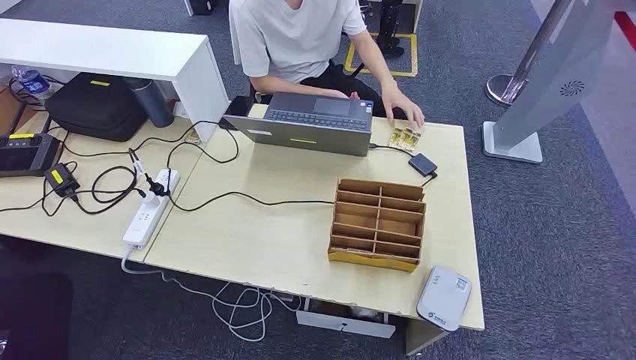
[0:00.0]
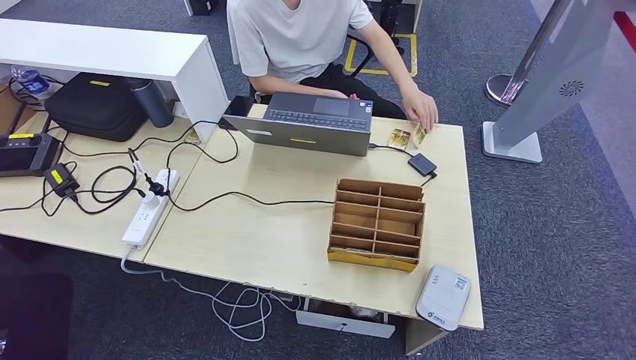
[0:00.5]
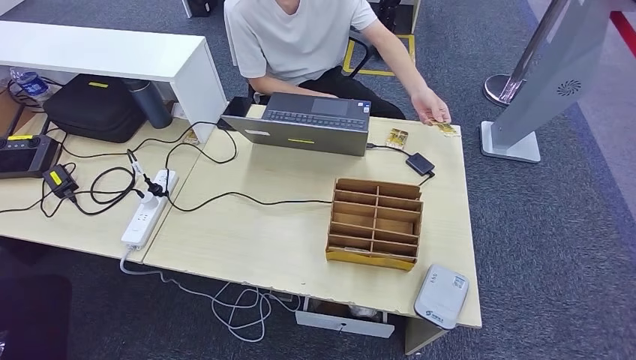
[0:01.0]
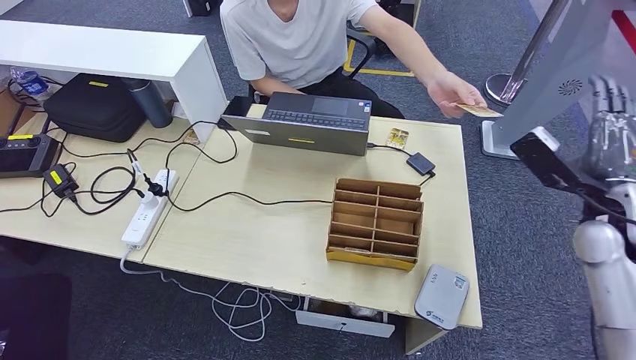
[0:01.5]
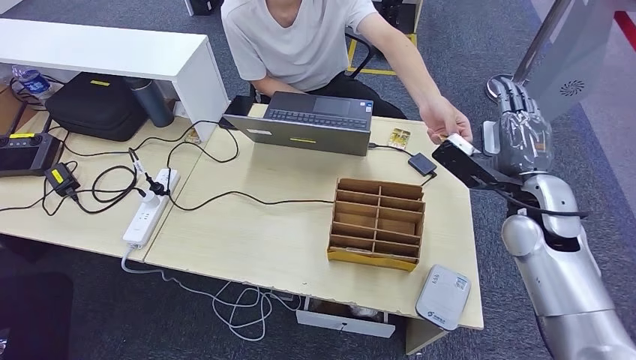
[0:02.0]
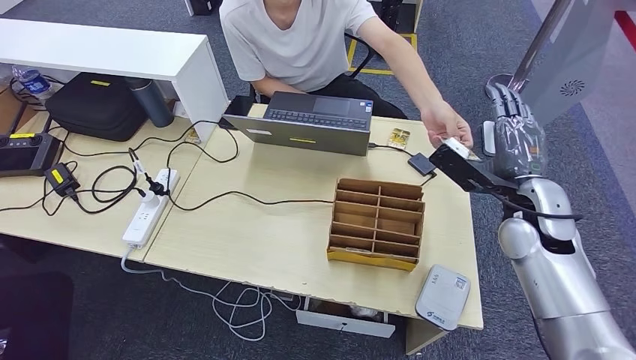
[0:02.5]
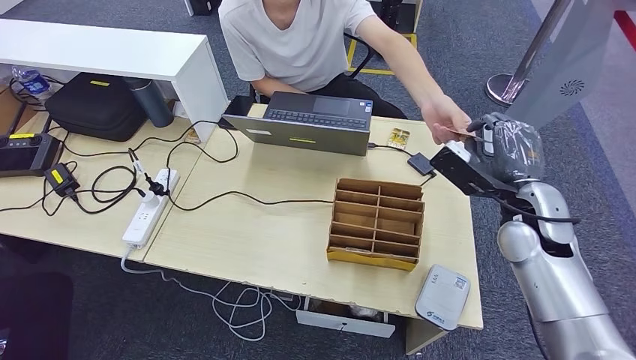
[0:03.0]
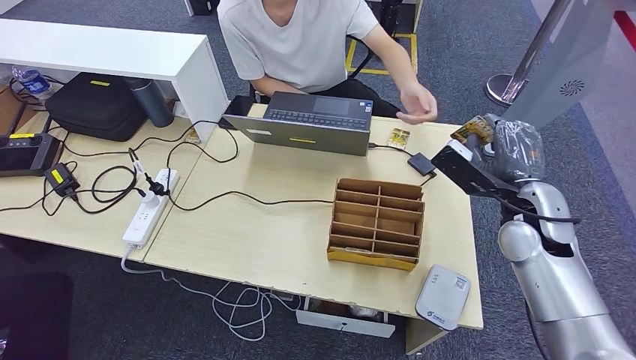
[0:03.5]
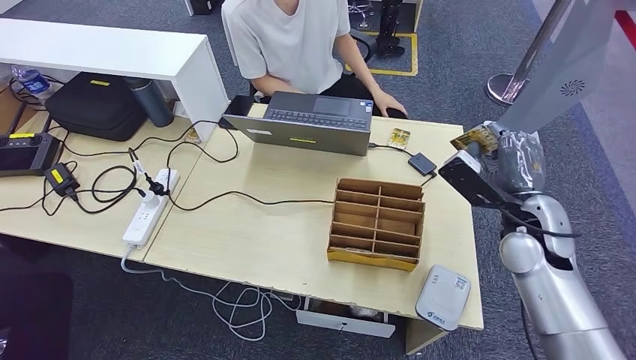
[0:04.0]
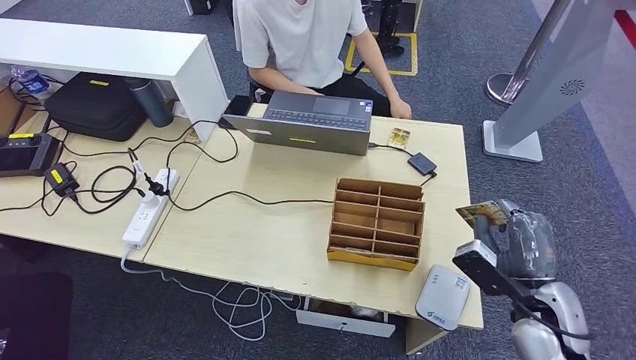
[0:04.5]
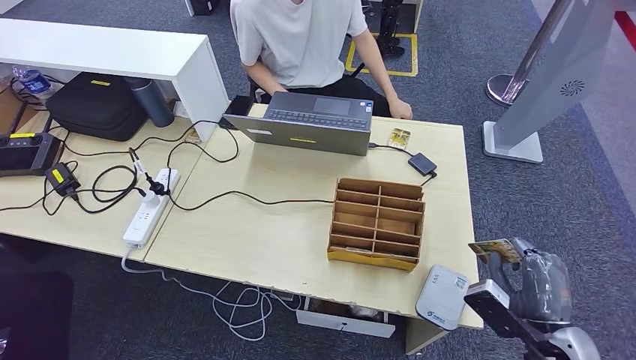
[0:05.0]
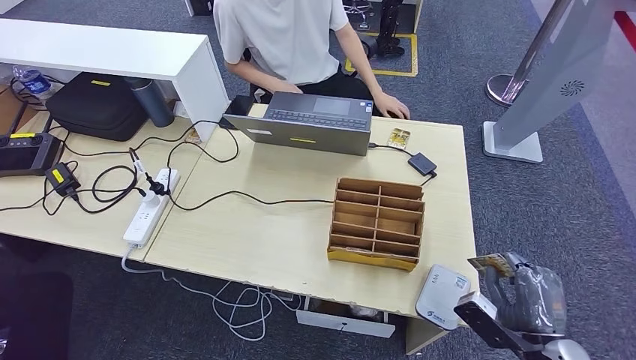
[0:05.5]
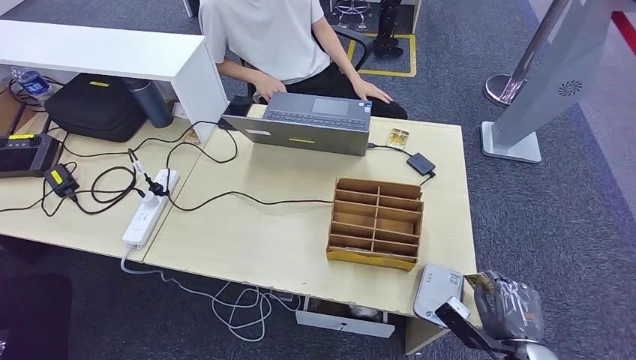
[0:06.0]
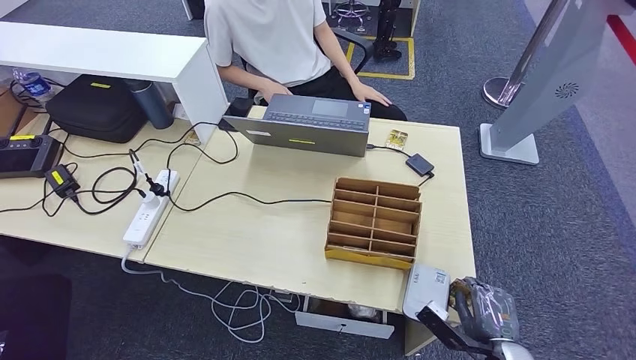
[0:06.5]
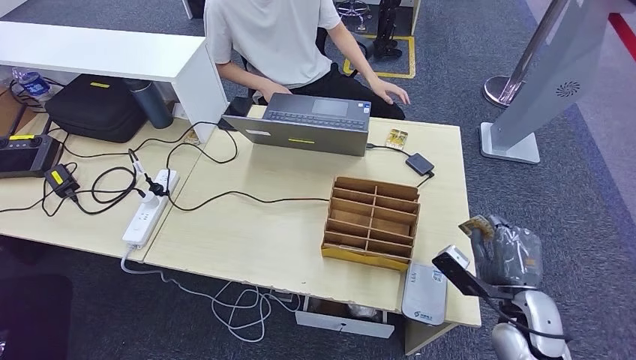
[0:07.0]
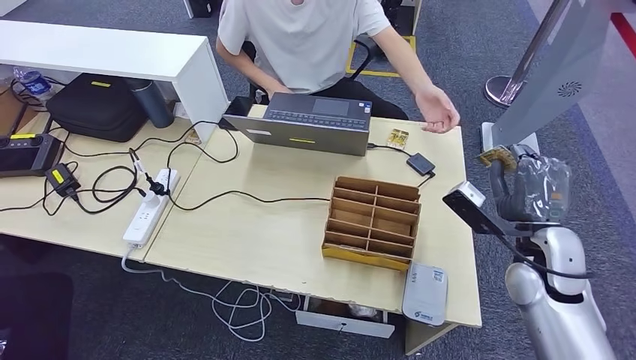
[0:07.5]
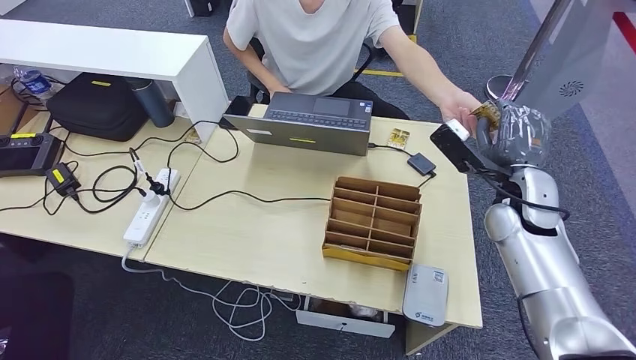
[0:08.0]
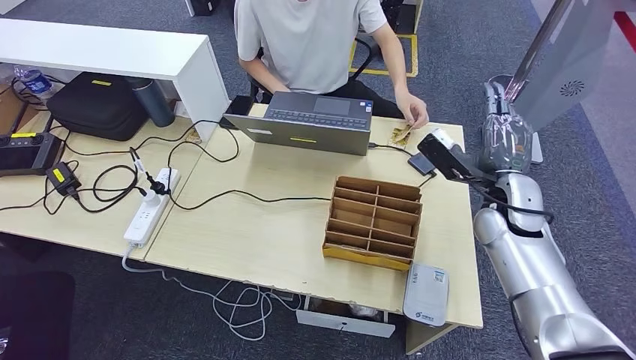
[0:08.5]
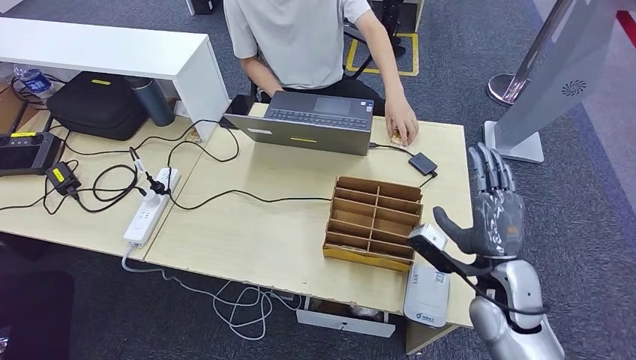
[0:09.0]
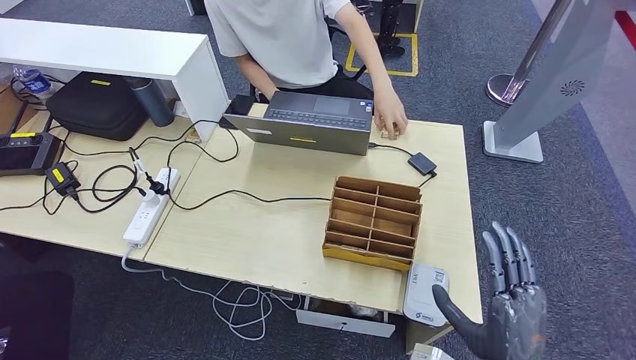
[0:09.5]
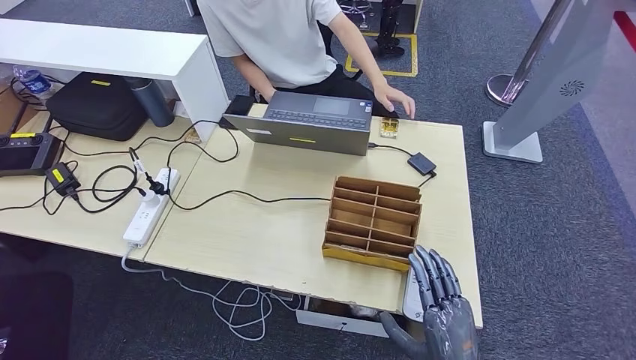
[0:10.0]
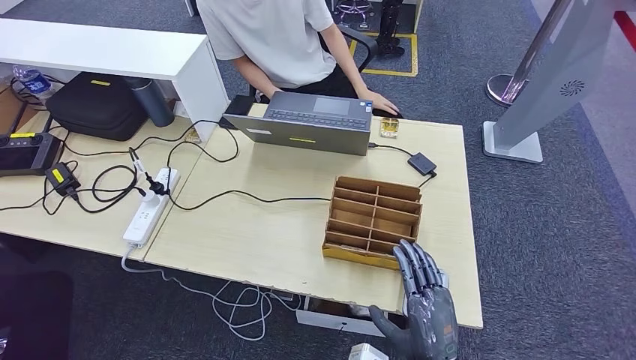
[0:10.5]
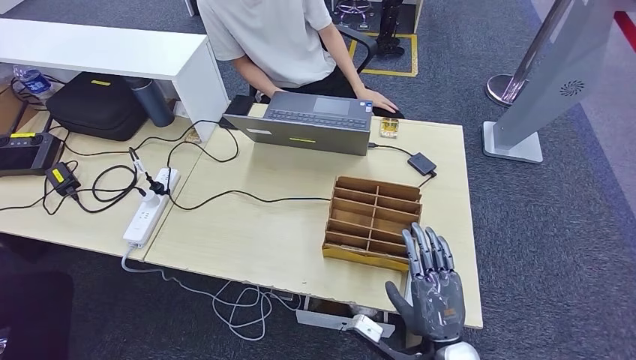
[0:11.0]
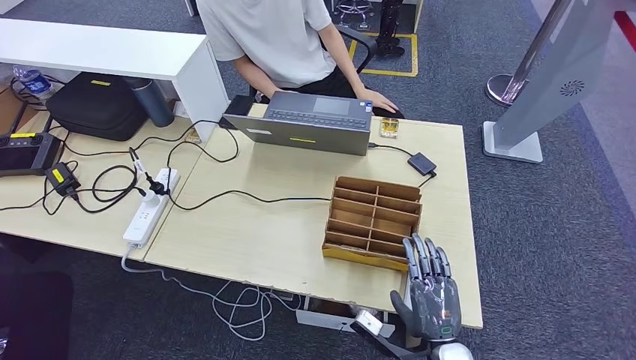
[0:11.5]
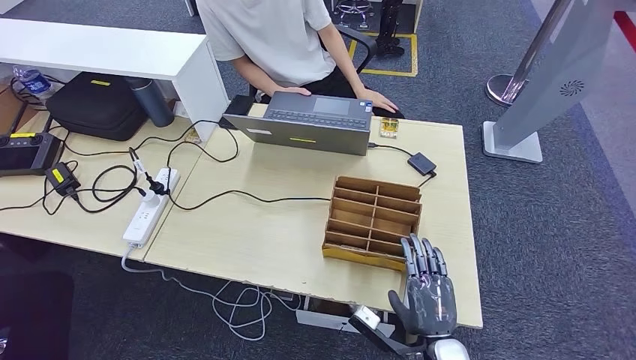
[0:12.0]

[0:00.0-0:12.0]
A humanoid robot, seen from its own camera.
Step, 0:00.0 to 0:03.0: Take the ID card from the person's hand.
Step, 0:04.0 to 0:06.5: Place the ID card on the card reader.
Step, 0:07.0 to 0:08.5: Hand the ID card to the person.
Step, 0:09.5 to 0:10.5: Pick up the room key from the key card box.
0:02.0 to 0:04.0: There are only small adjustments of the hands.
0:04.0 to 0:06.0: The right hand travels downward and backward by approximately 25 cm.
0:08.0 to 0:10.0: The right hand moves backward and downward, approximately 30 cm.
0:10.0 to 0:12.0: The right hand shifts approximately 10 cm downward and forward.

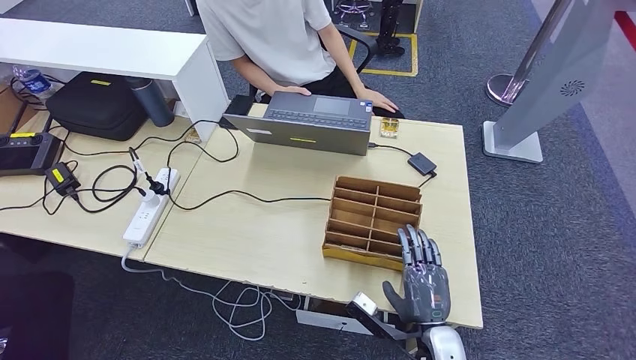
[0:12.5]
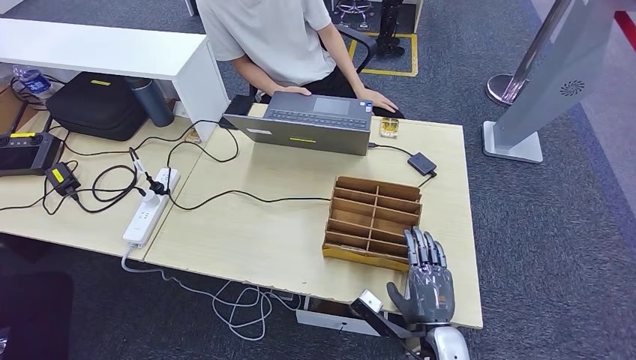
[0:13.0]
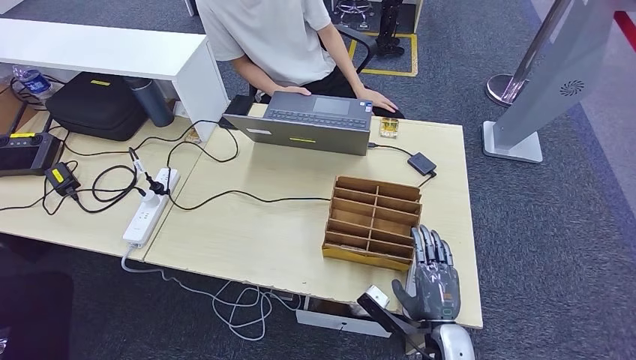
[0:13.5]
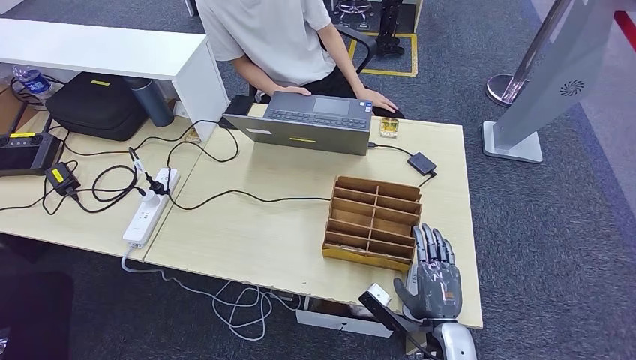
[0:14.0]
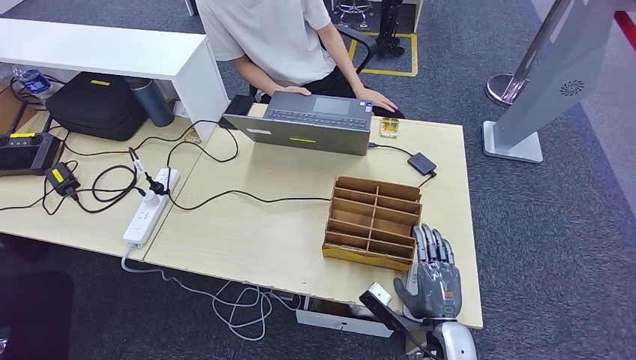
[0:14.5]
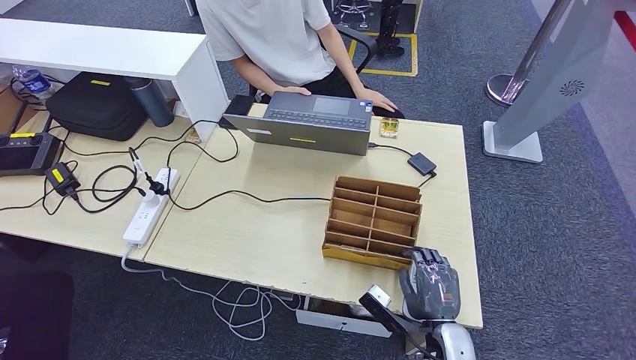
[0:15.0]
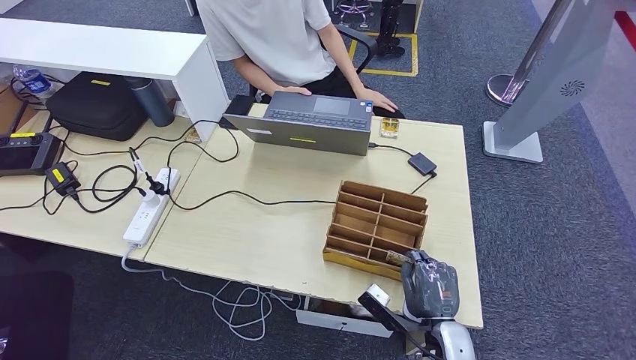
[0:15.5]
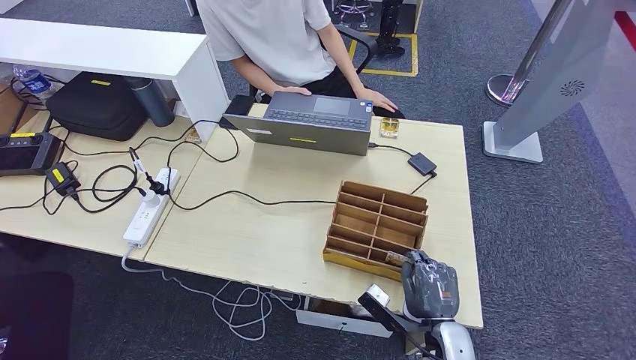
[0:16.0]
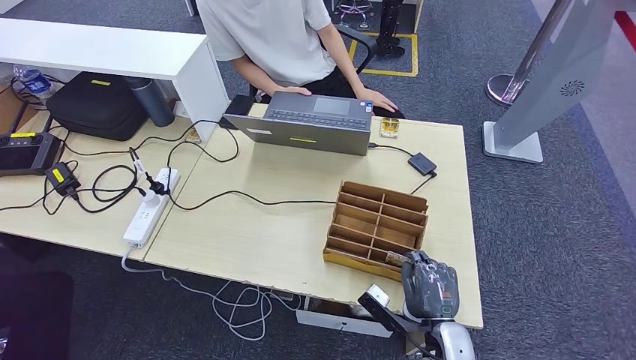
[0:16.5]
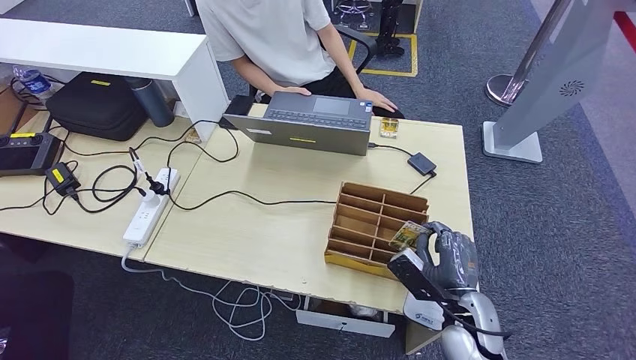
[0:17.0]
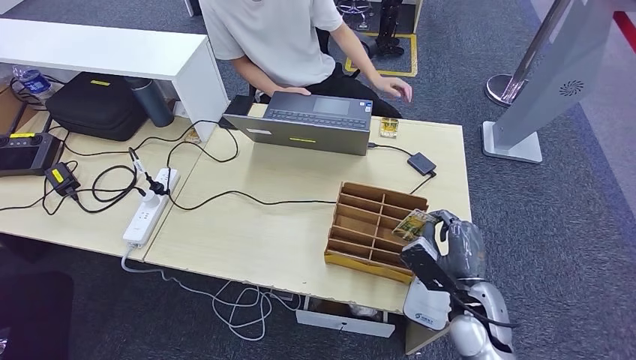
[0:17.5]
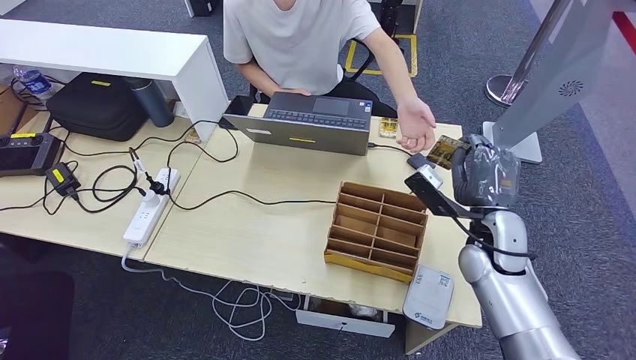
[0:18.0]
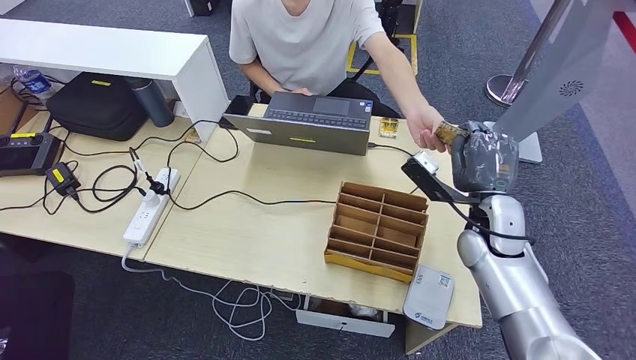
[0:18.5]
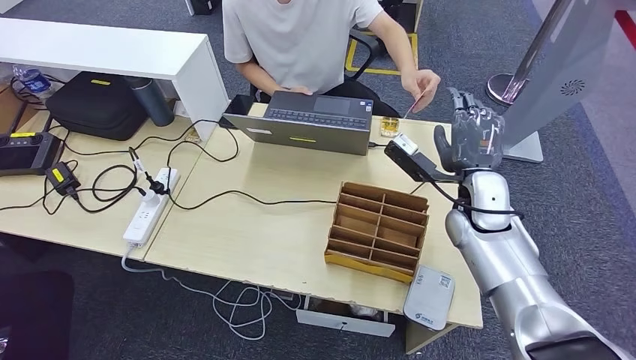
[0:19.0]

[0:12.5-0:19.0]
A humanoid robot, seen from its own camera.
Step, 0:12.5 to 0:19.0: Hand the room key to the person.
0:12.5 to 0:14.5: The hands stay close to where they were, moving slightly.
0:14.5 to 0:17.0: The right hand ends up about 5 cm from where it was.
0:17.0 to 0:19.0: The right hand travels forward and upward by about 20 cm.
